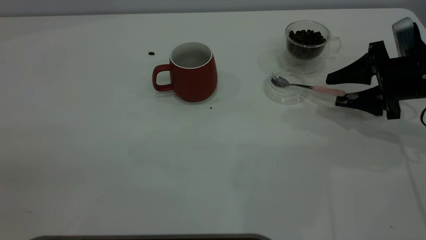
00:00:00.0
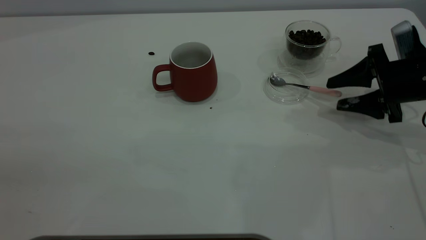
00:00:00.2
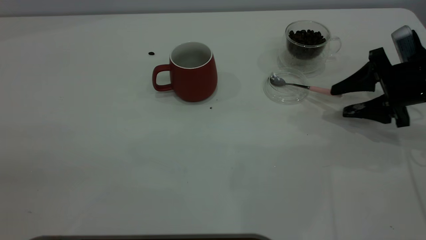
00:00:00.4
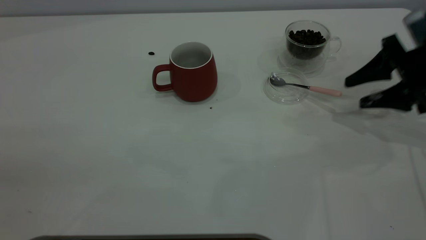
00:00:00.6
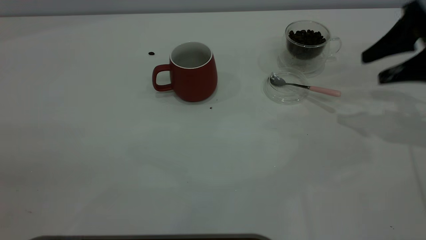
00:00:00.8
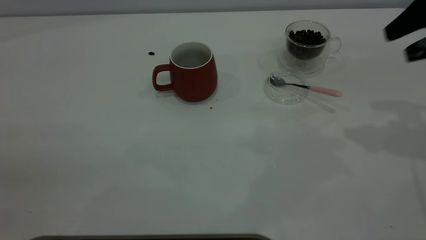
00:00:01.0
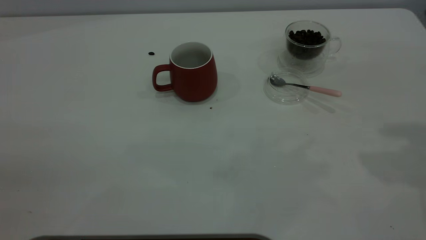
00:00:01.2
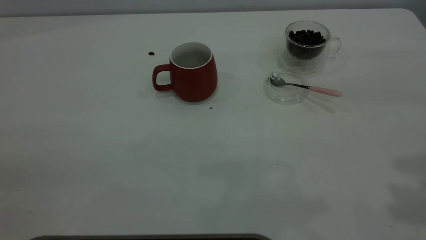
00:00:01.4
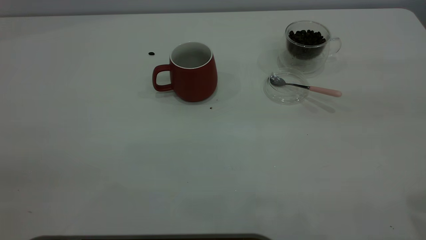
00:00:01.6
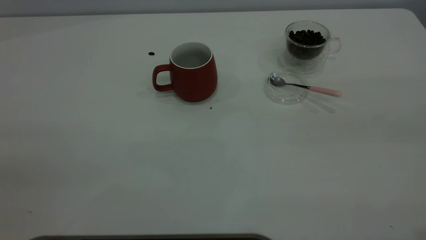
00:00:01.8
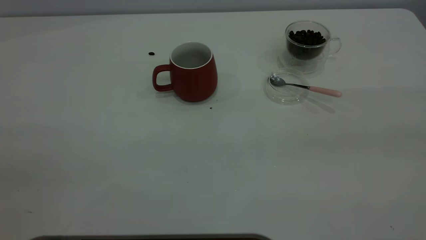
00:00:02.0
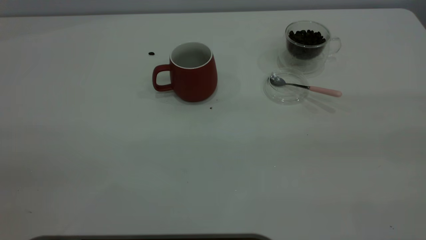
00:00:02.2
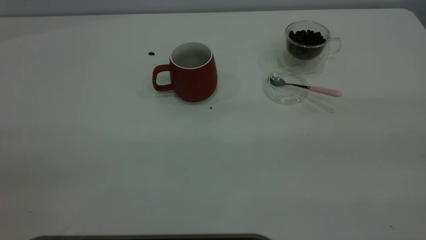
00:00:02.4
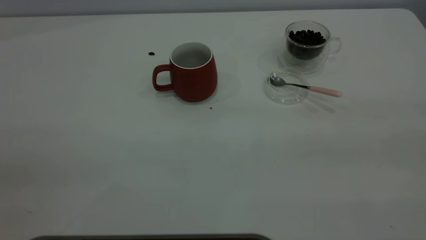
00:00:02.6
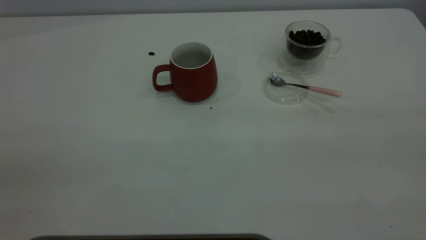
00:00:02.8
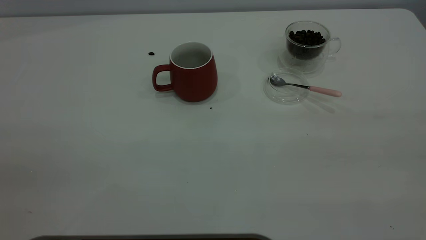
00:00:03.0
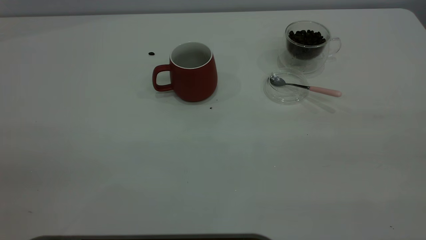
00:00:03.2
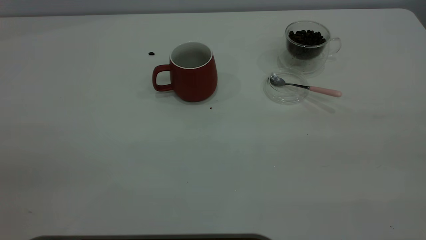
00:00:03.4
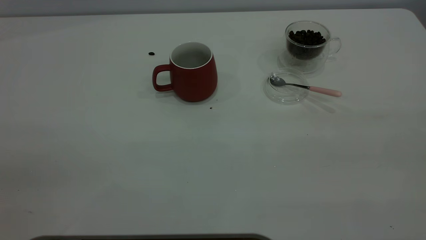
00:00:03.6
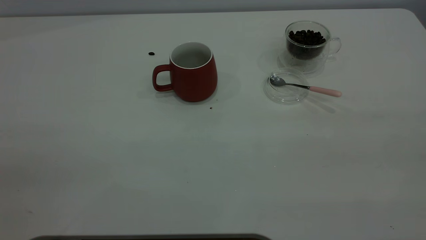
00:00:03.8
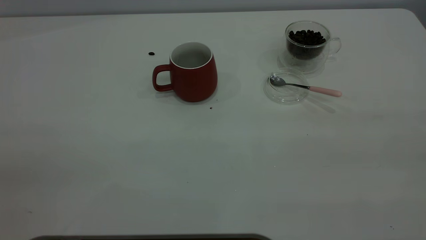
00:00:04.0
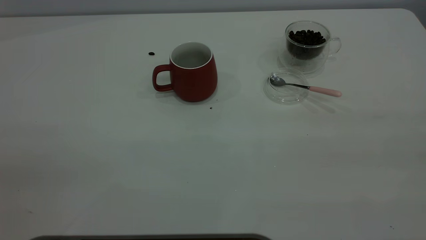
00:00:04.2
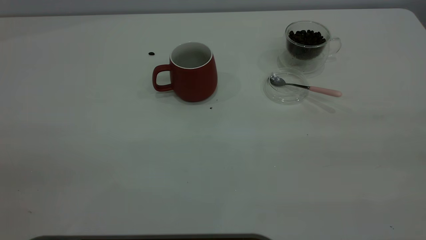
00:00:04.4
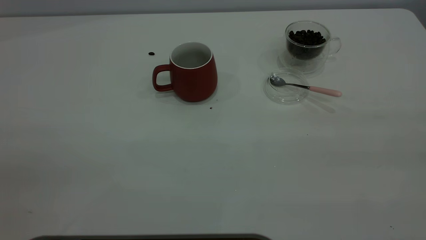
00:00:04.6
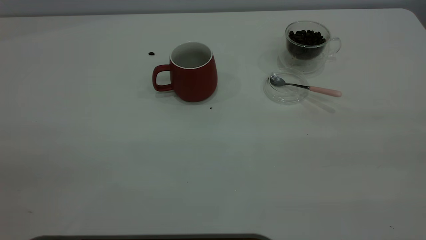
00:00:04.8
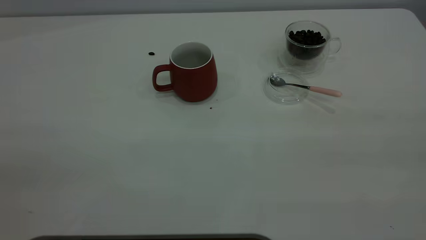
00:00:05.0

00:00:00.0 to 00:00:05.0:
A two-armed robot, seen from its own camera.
Task of the whole recording: the left gripper place the red cup in the center of the table, the right gripper take the pink spoon from the cup lid and scoop out the coffee beans from the coffee cup and put them into the red cup, the right gripper put the spoon back into the cup lid.
00:00:00.0 to 00:00:01.6: The right gripper moves upward and backward, some 35 cm.
